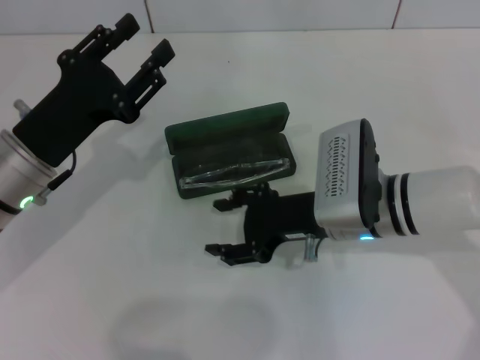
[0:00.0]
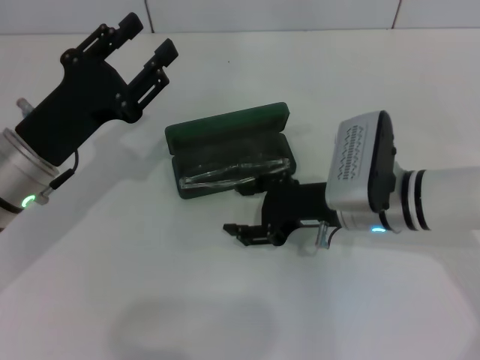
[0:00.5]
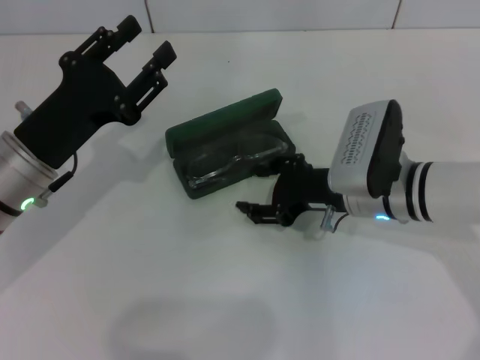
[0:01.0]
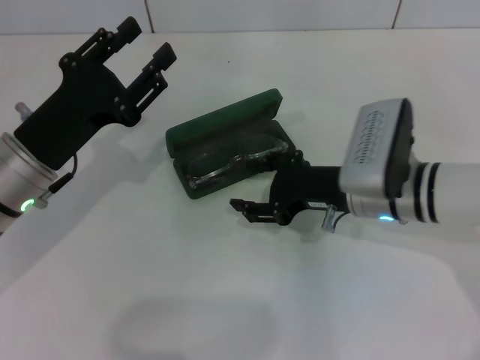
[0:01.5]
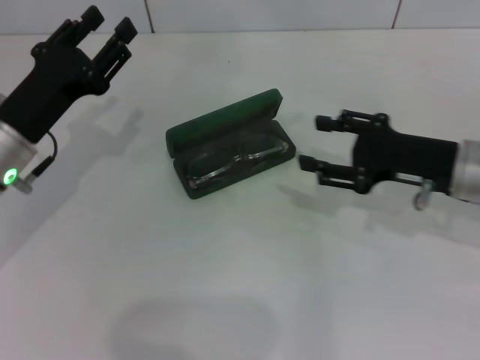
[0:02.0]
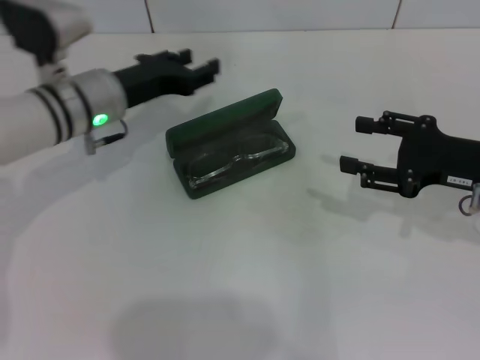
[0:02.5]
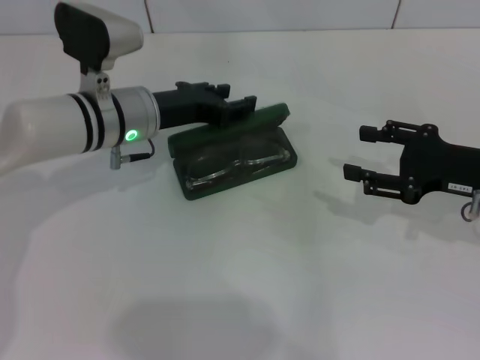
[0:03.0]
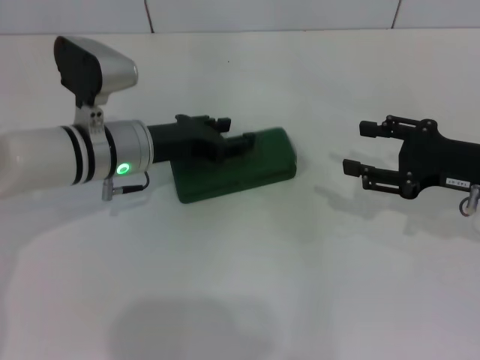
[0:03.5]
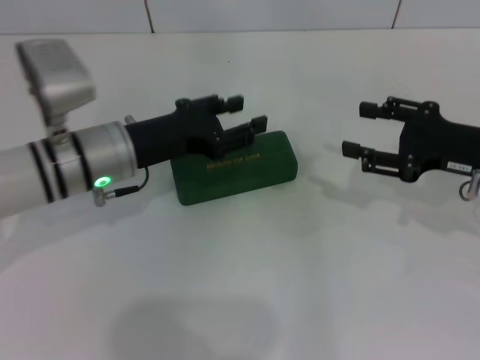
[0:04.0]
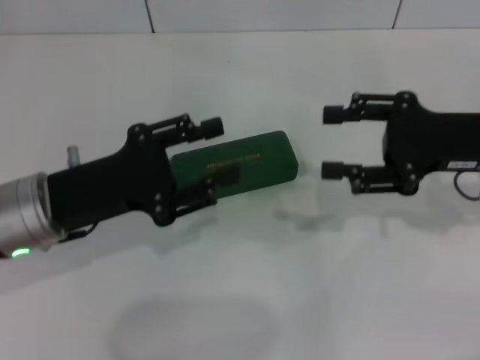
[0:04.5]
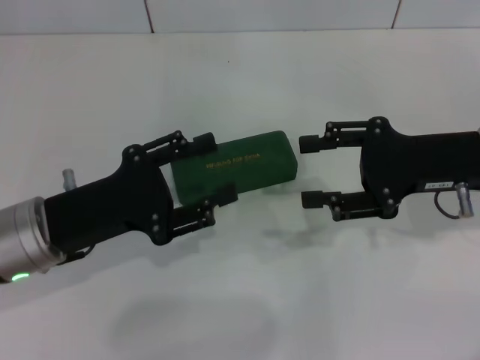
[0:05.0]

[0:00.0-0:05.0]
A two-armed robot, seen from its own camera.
Step, 0:02.0 to 0:03.5: Close the glasses case with your left hand.
0:00.0 to 0:02.5: The right gripper goes some 15 cm to the right; the left gripper travels forward by some 10 cm.
0:02.5 to 0:05.0: The left gripper is displaced backward by some 15 cm; the right gripper ends up about 5 cm from where it was.

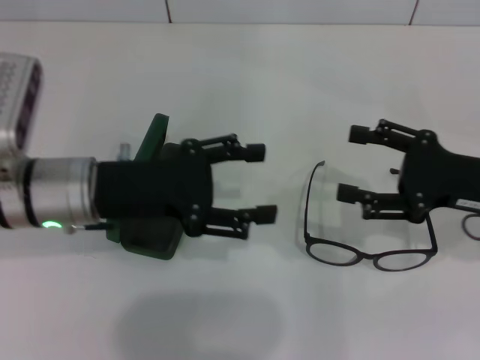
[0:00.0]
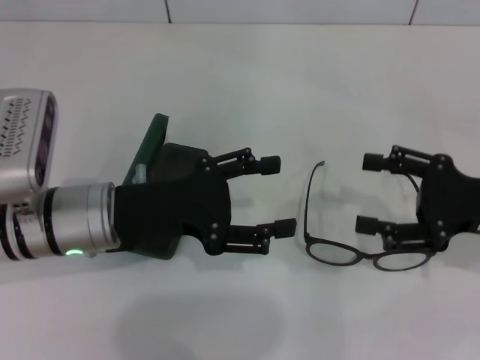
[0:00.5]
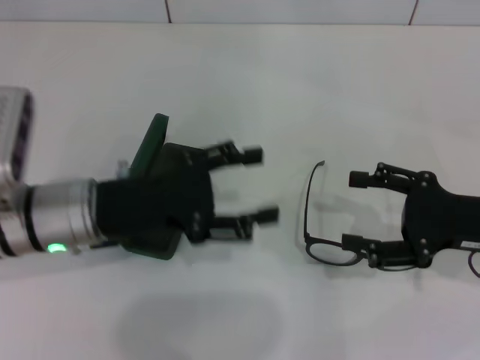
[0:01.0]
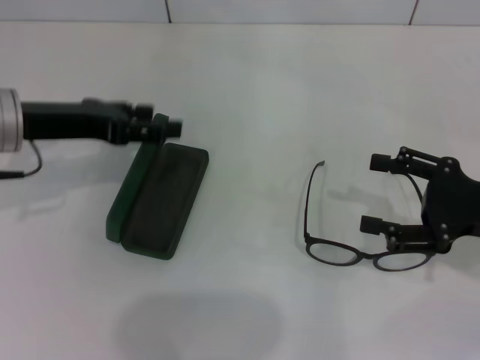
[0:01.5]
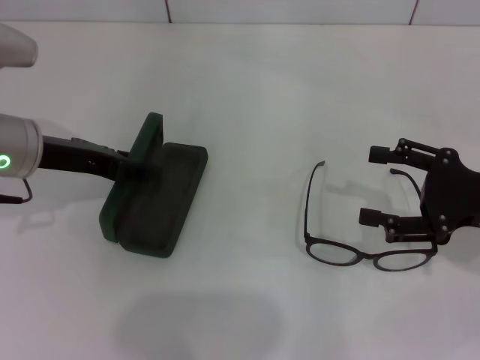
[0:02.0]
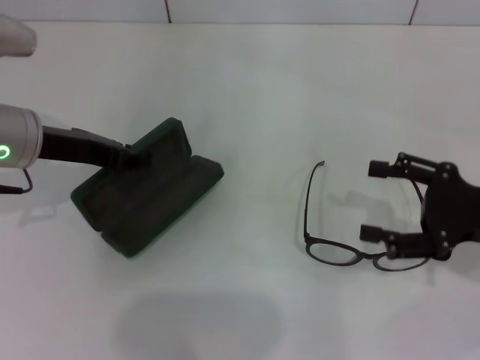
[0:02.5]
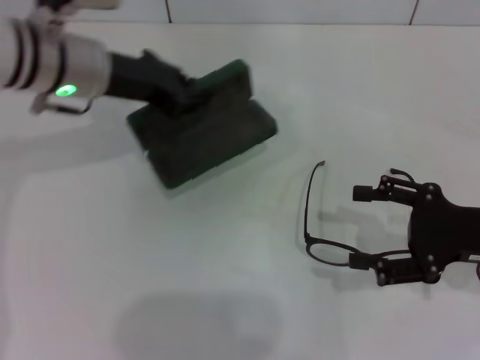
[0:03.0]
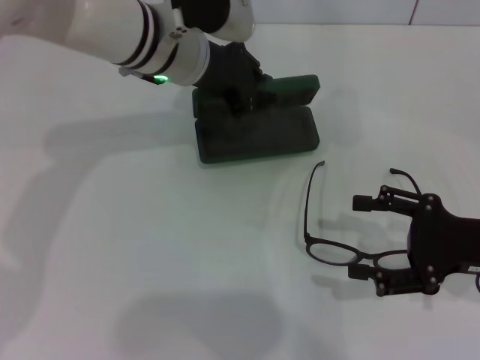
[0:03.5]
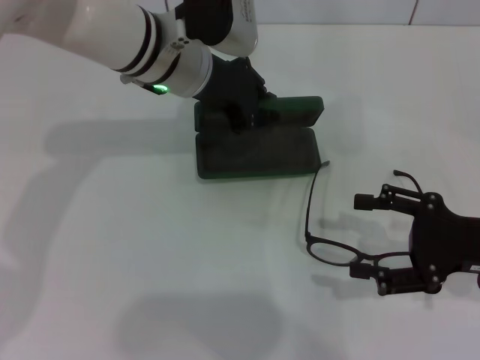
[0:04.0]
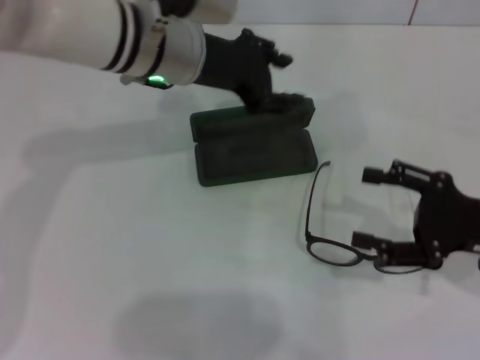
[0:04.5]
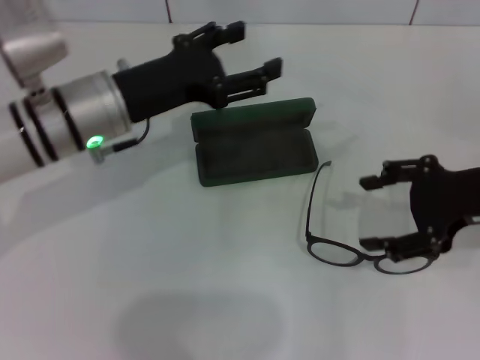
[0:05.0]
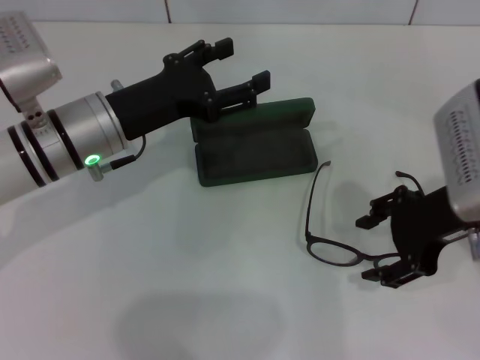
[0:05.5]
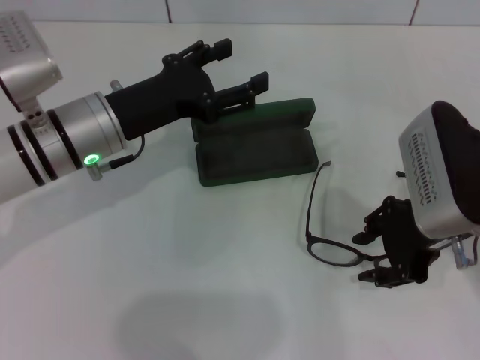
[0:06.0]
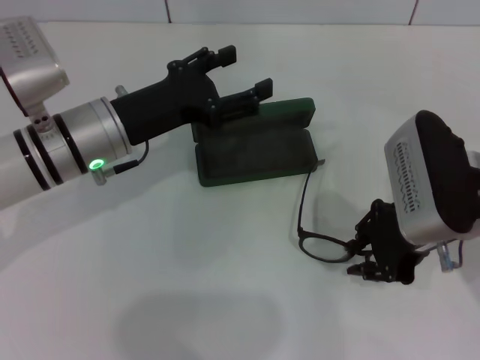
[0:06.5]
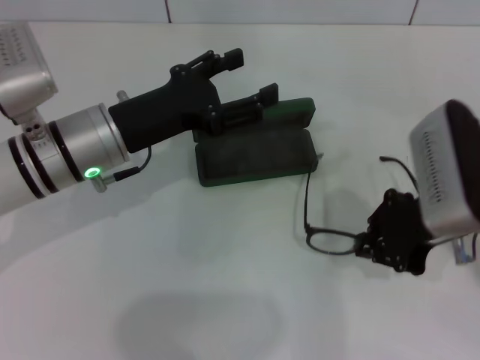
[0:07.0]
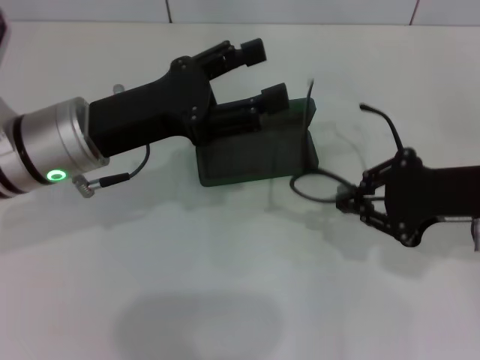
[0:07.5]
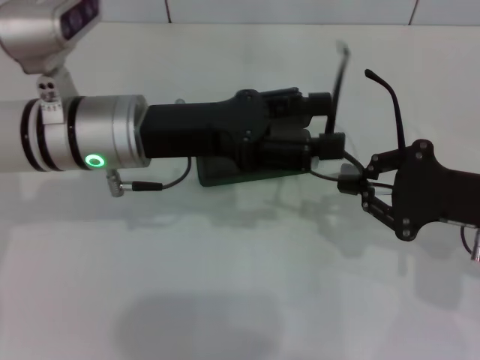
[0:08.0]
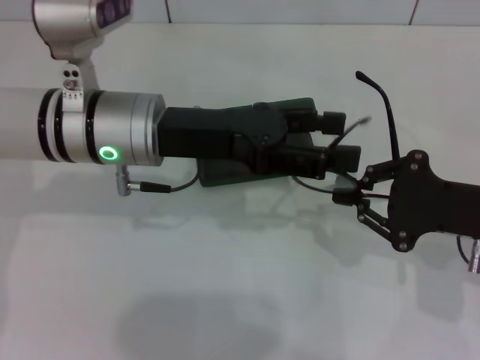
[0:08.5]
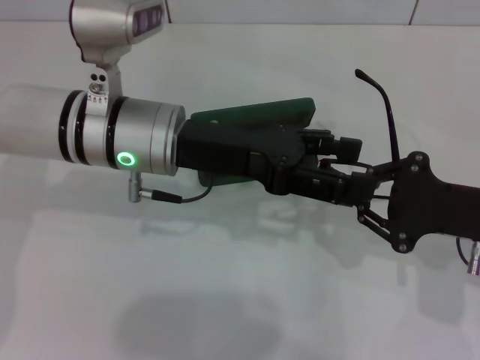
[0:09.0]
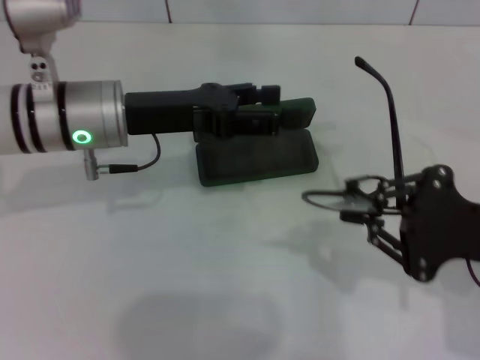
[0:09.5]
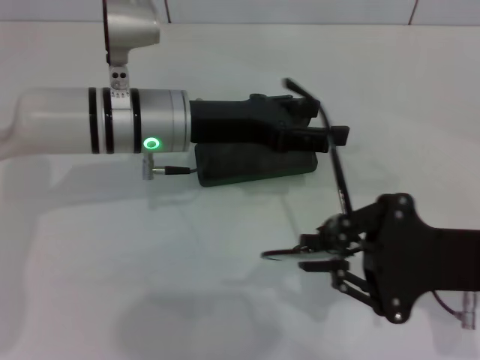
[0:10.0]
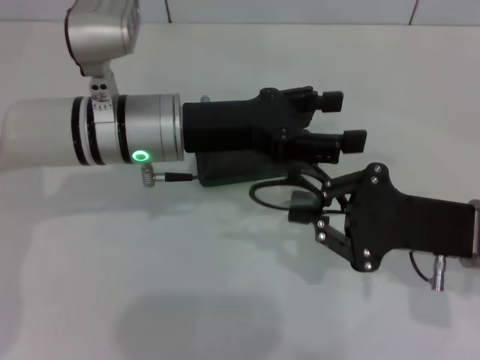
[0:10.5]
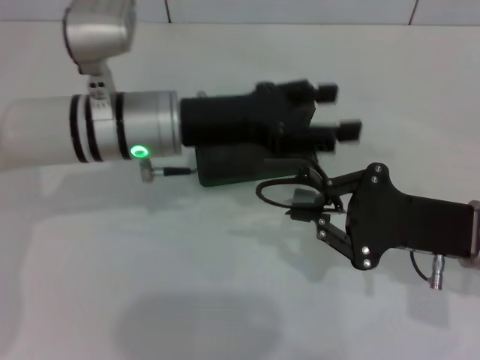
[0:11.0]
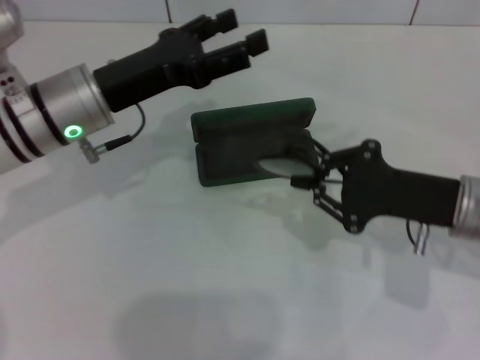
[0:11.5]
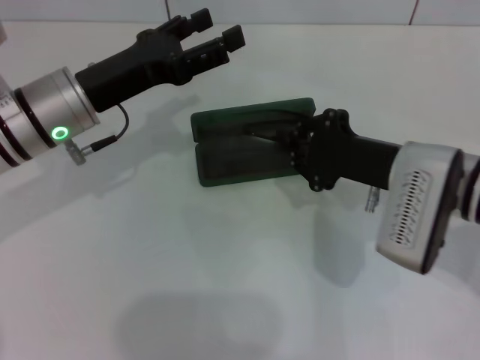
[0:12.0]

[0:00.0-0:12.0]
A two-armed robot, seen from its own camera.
Step, 0:00.0 to 0:02.0: Grab the glasses case with your left hand.
Step, 0:02.5 to 0:04.0: Place the glasses case in the center of the table with your left hand.
Step, 0:04.5 to 0:06.5: Grab the eyeglass frame with your right hand.
Step, 0:07.0 to 0:10.5: Lift the glasses with your right hand.
0:00.0 to 0:02.0: The left gripper is displaced to the left by about 5 cm.
0:02.0 to 0:04.0: The left gripper heads to the right and forward, covering approximately 15 cm, and closes its fingers.
0:04.0 to 0:06.0: The right gripper moves to the left and upward, some 10 cm, and closes. Meanwhile the left gripper is displaced to the left, backward and downward by roughly 15 cm, and opens.
0:06.0 to 0:08.0: The left gripper ends up about 5 cm from where it was. Meanwhile the right gripper moves to the right, about 5 cm, and closes its fingers.
0:08.0 to 0:10.0: The left gripper moves about 5 cm.
0:10.0 to 0:12.0: The left gripper is displaced to the left by approximately 10 cm. Meanwhile the right gripper heads forward and to the left, covering about 10 cm.

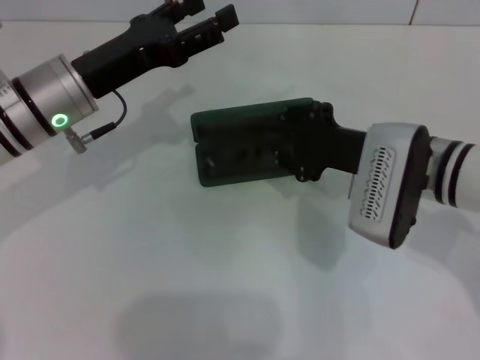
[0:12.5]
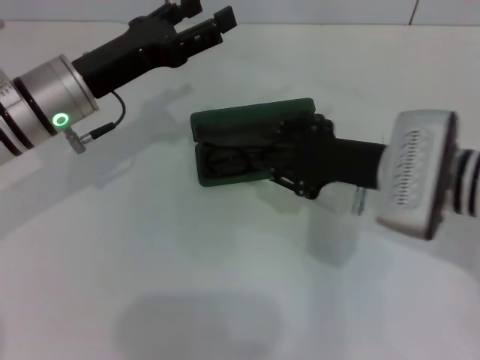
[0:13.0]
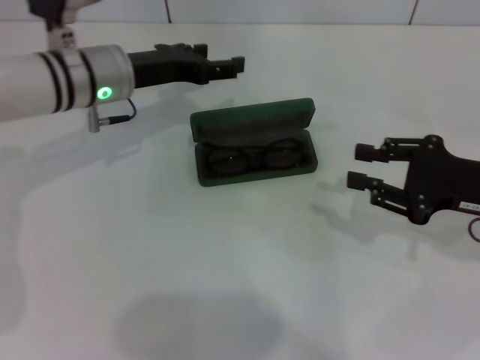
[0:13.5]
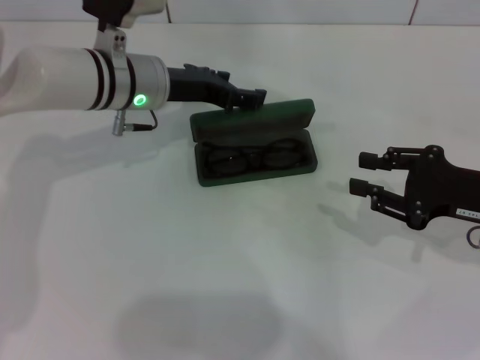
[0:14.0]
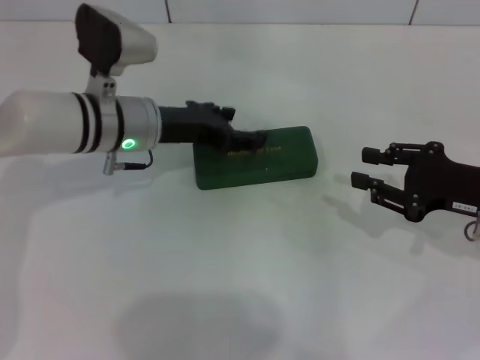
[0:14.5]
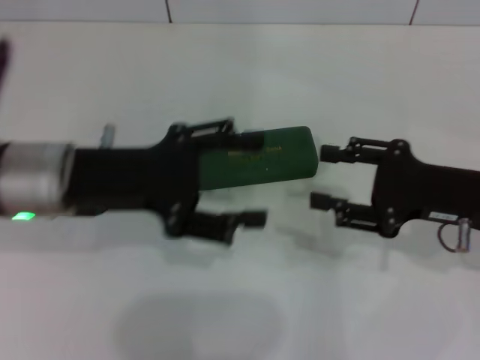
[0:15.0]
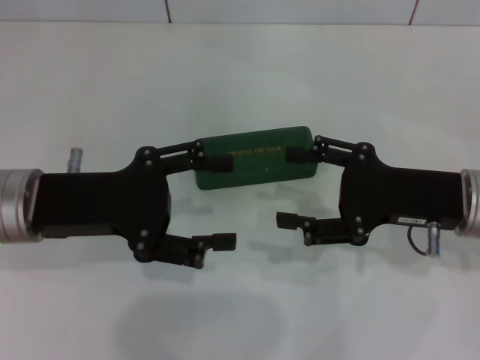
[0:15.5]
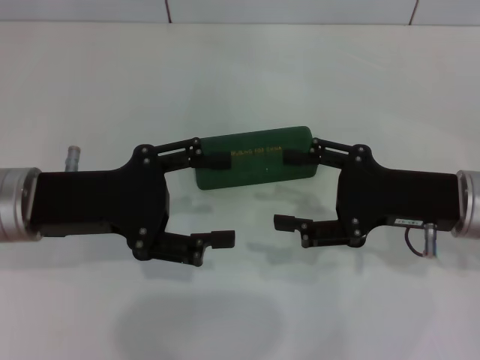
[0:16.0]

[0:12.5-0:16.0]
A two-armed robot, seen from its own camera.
Step, 0:13.0 to 0:14.0: Close the glasses case with your left hand.
0:12.5 to 0:14.5: The right gripper is displaced to the right by approximately 15 cm, and opens. The left gripper ends up roughly 5 cm from where it was.
0:14.5 to 0:16.0: The left gripper shifts approximately 15 cm backward and to the left. Meanwhile the right gripper shifts some 5 cm to the left, and opens.
